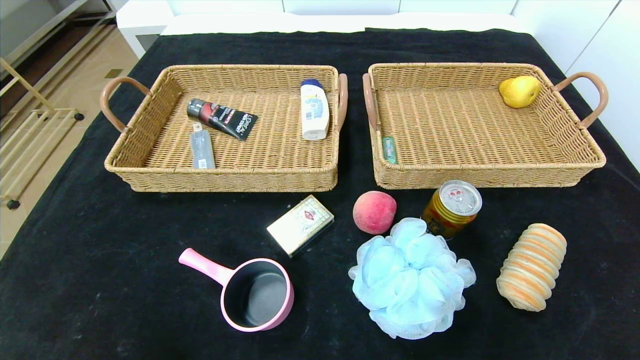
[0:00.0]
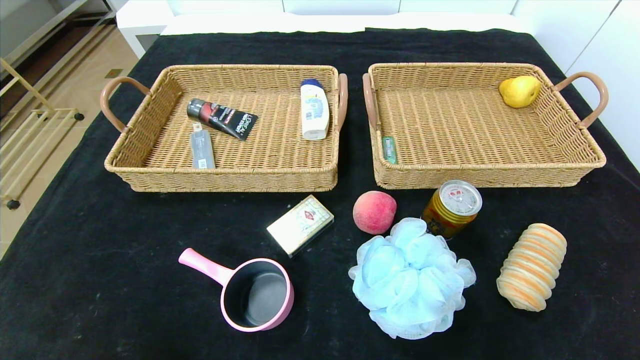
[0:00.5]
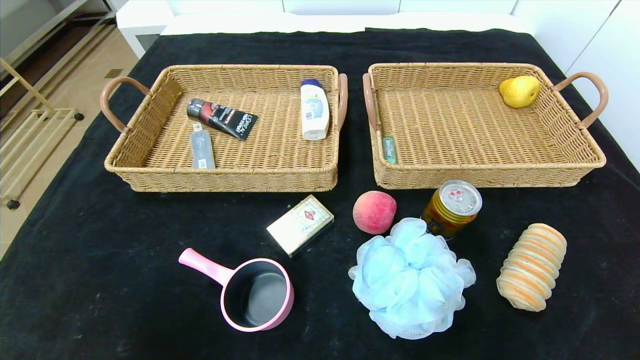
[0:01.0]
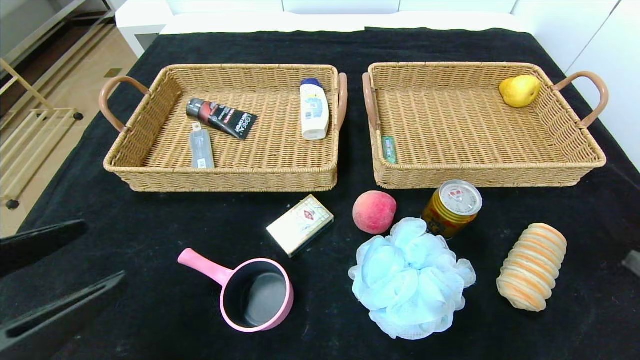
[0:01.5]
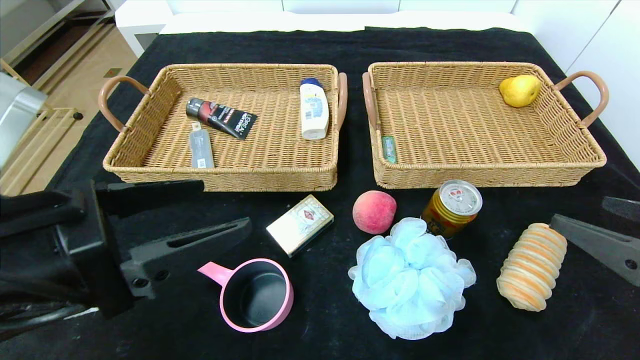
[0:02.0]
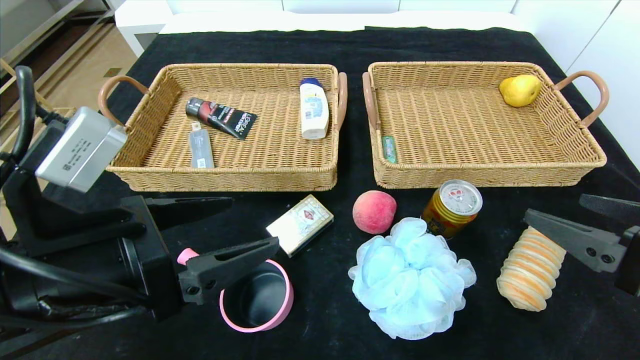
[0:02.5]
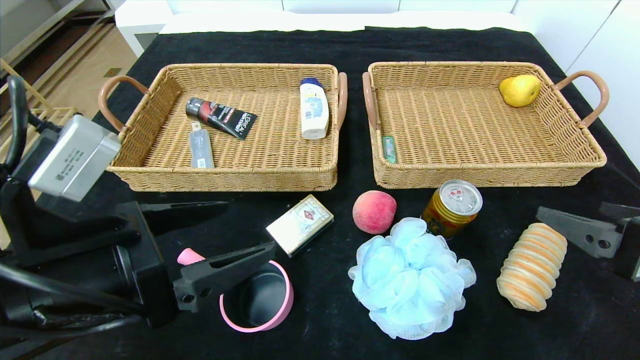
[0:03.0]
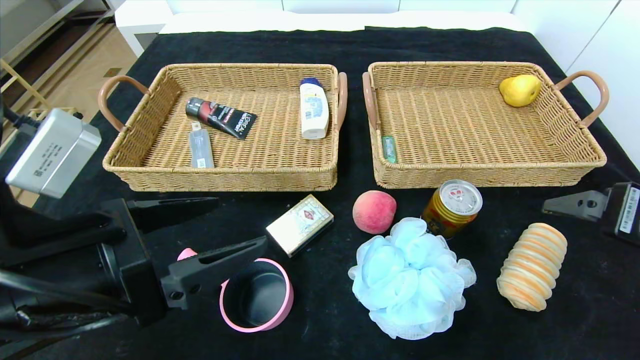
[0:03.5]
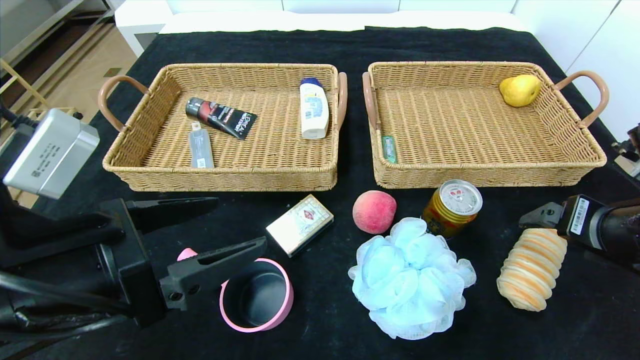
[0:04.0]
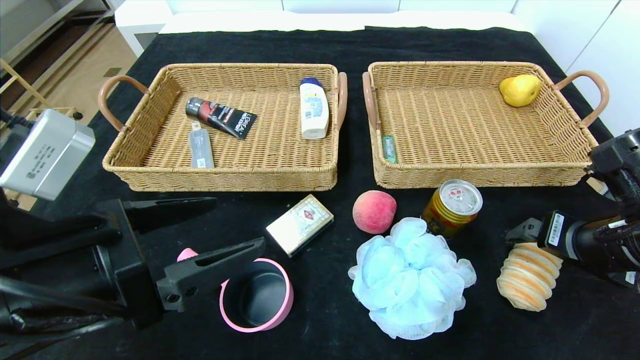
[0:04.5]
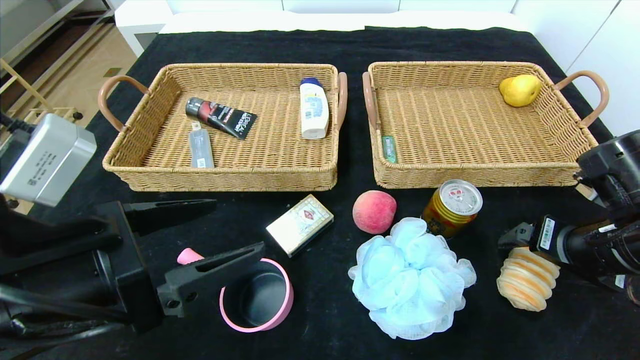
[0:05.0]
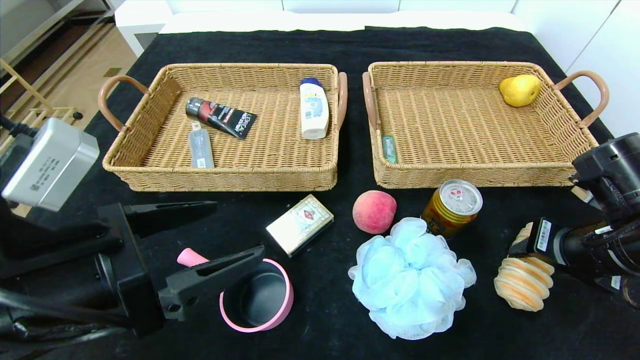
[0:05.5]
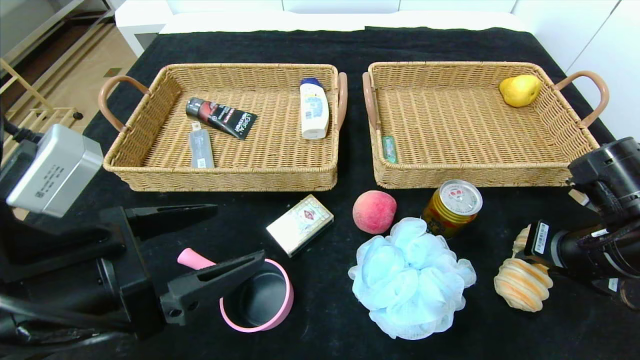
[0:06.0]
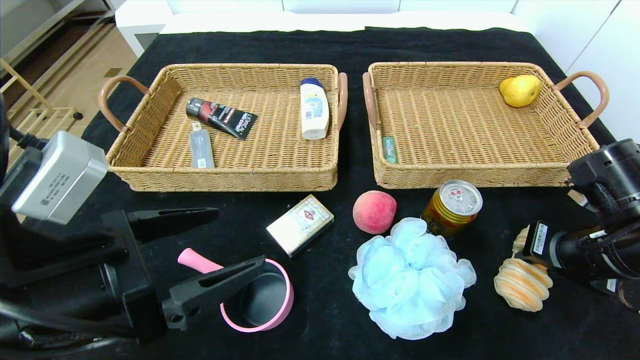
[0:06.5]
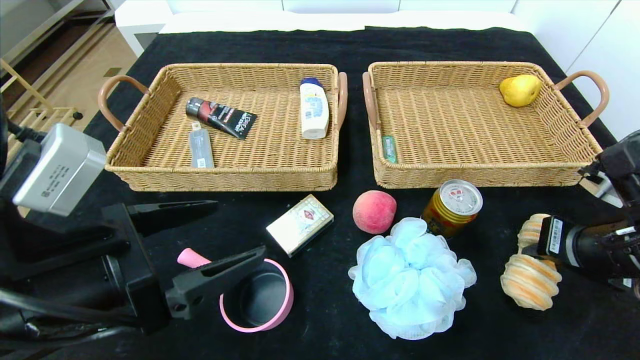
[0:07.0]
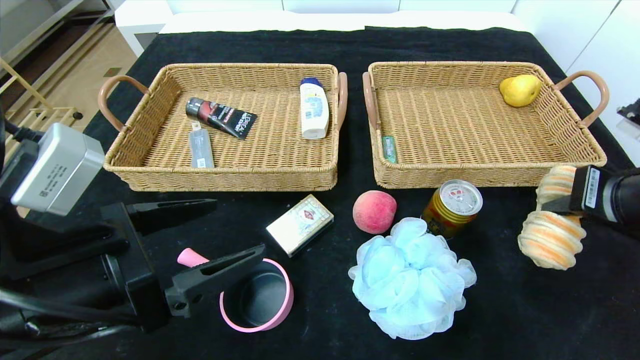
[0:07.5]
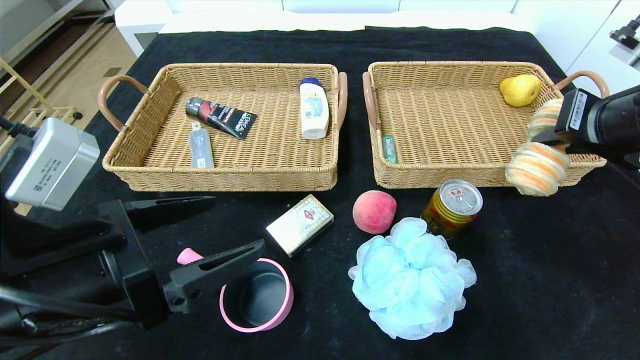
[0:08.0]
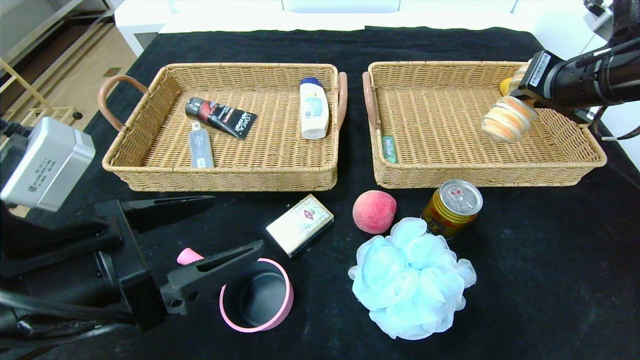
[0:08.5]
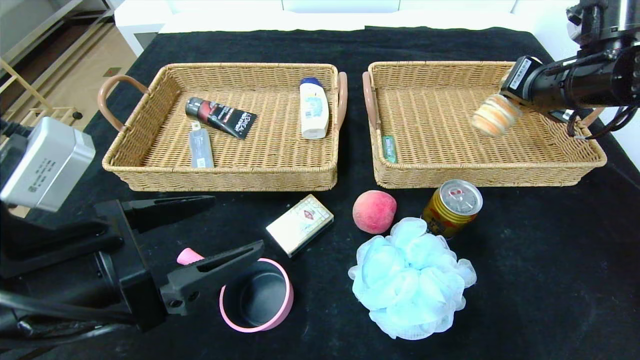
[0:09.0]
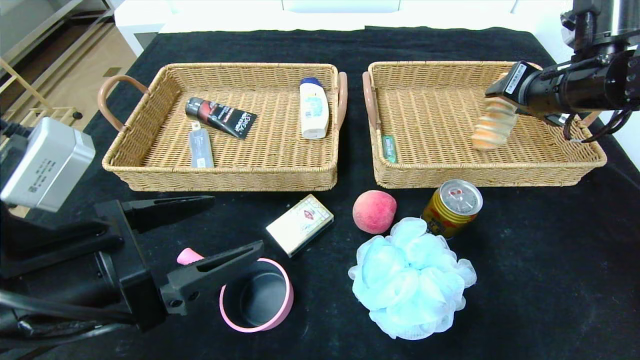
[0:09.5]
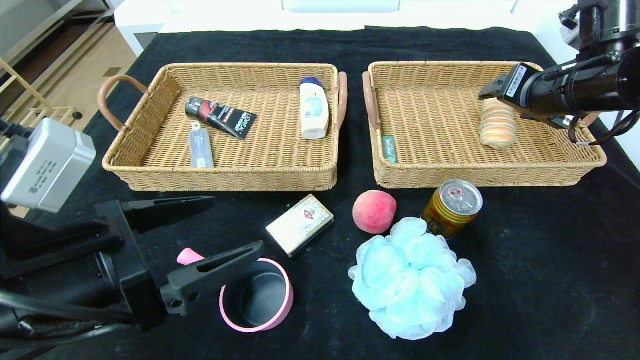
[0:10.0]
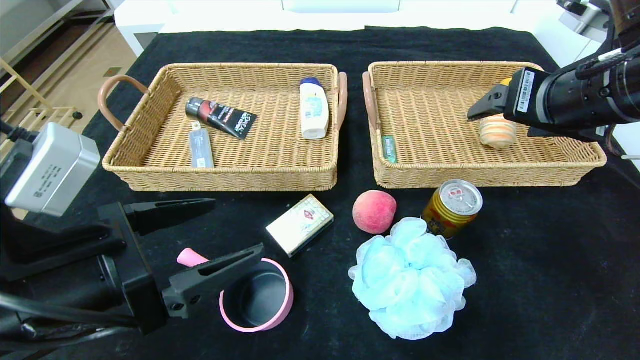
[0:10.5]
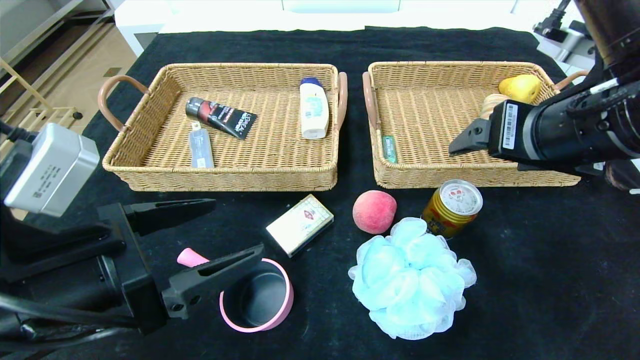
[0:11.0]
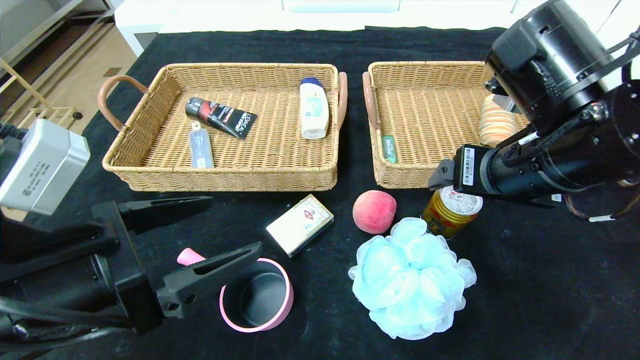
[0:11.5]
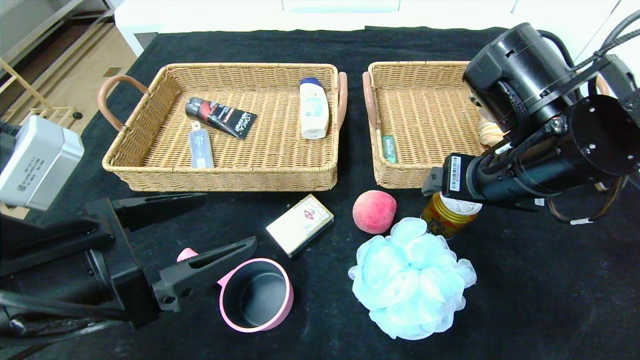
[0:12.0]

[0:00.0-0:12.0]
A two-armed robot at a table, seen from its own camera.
Step, 0:00.0 to 0:11.0: Pick up the long bread and put it in the right basket.
0:00.0 to 0:02.0: The right gripper shifts roughly 20 cm upward and forward, while the left gripper goes some 25 cm upward, forward and to the right.
0:02.0 to 0:04.0: The right gripper shifts some 10 cm forward.
0:04.0 to 0:06.0: The right gripper ends up some 5 cm from where it was, and closes its fingers.
0:06.0 to 0:08.0: The right gripper shifts some 15 cm upward.
0:08.0 to 0:10.0: The right gripper heads forward, covering some 10 cm, and opens.
0:10.0 to 0:12.0: The right gripper heads to the left and backward, covering approximately 15 cm.

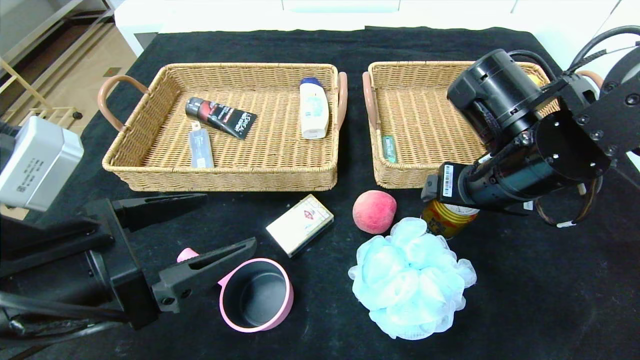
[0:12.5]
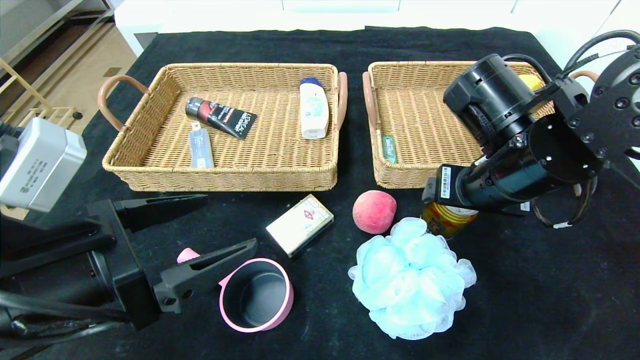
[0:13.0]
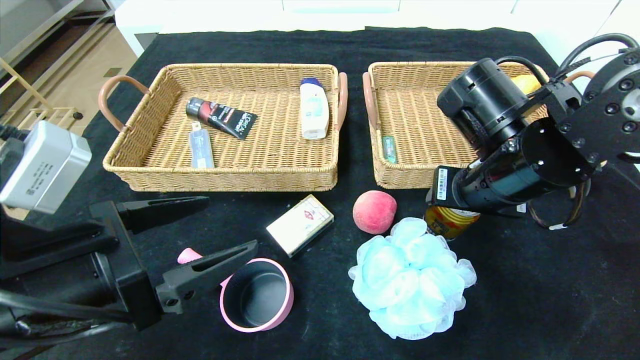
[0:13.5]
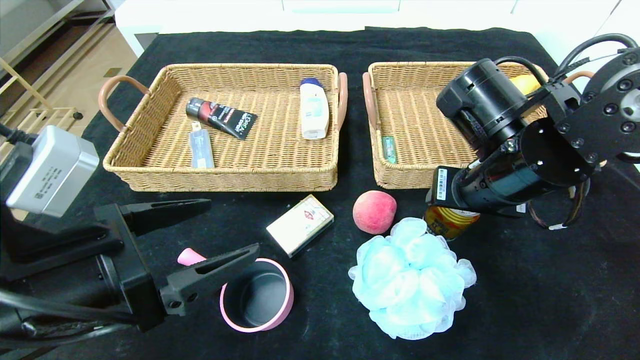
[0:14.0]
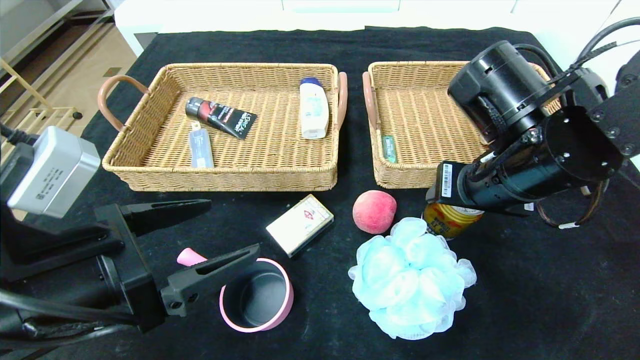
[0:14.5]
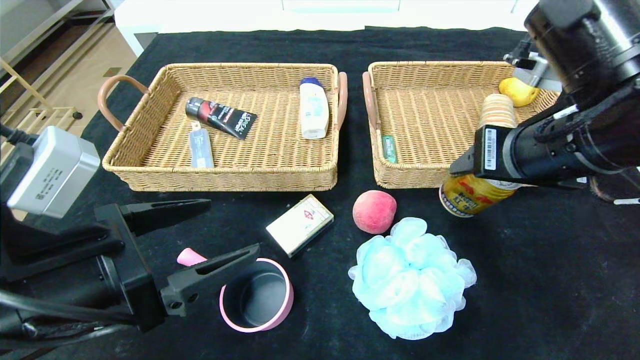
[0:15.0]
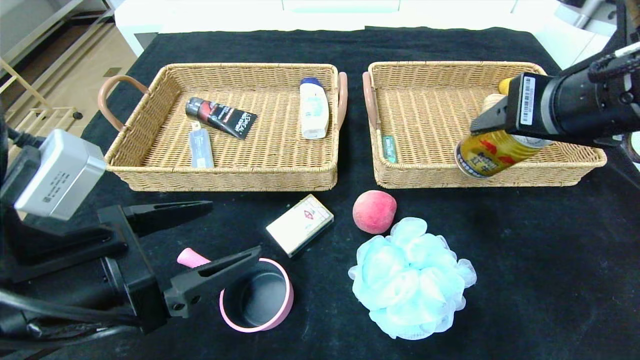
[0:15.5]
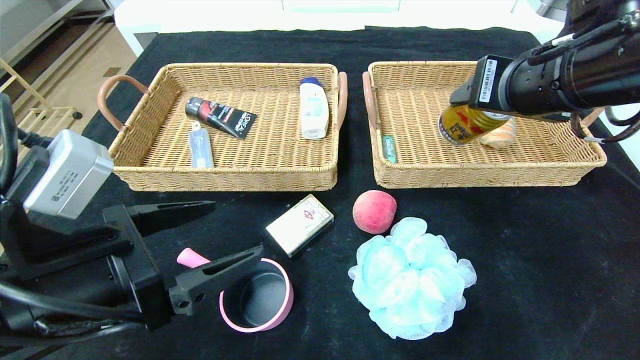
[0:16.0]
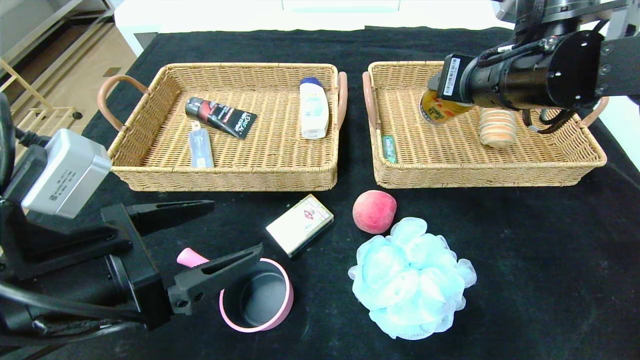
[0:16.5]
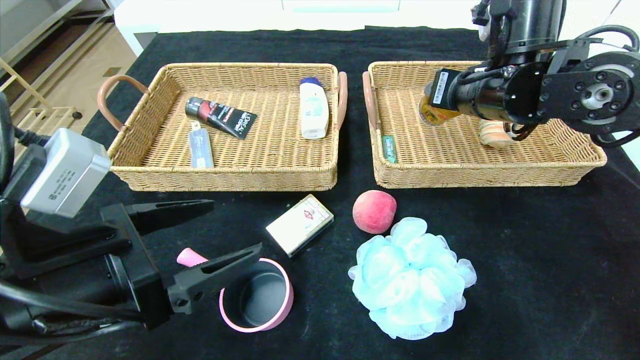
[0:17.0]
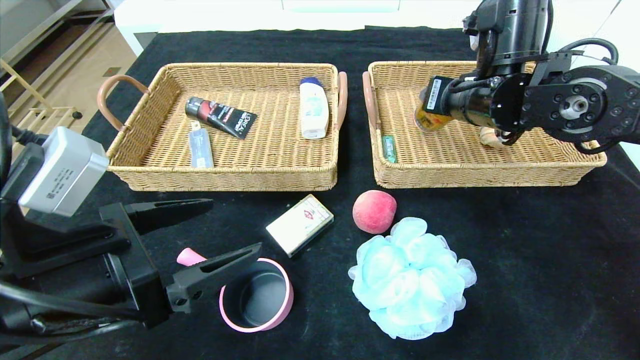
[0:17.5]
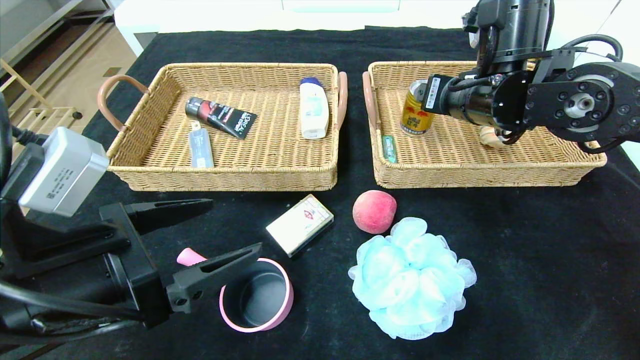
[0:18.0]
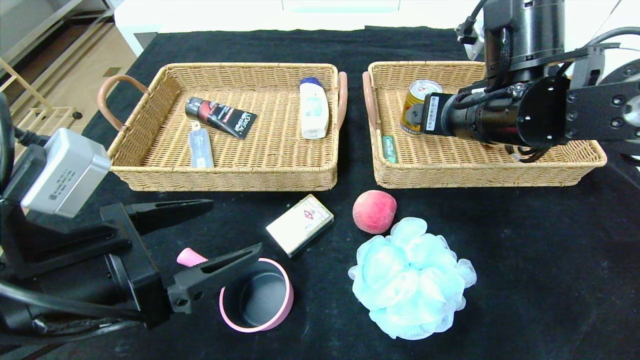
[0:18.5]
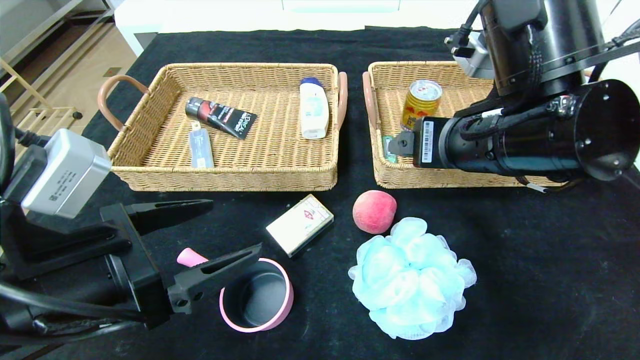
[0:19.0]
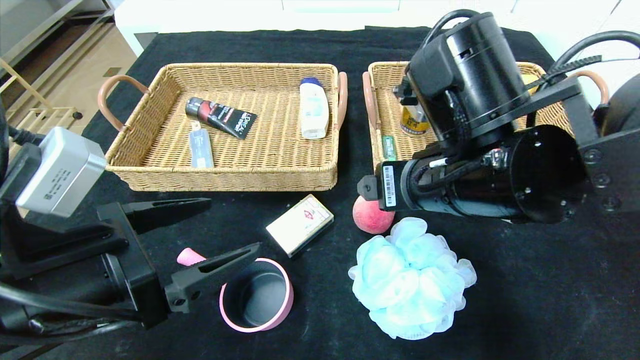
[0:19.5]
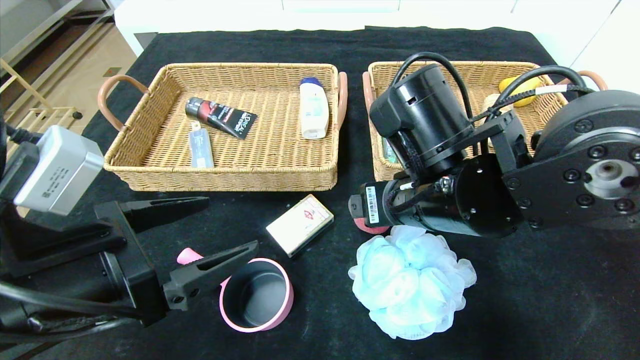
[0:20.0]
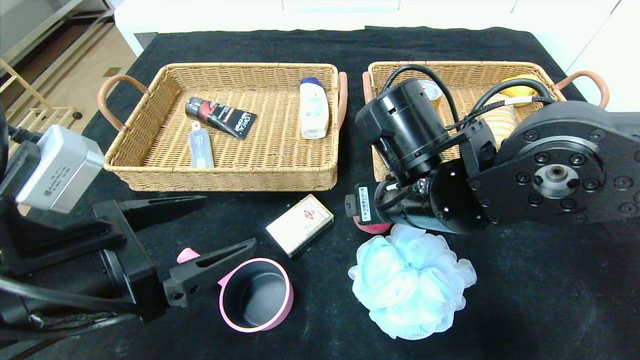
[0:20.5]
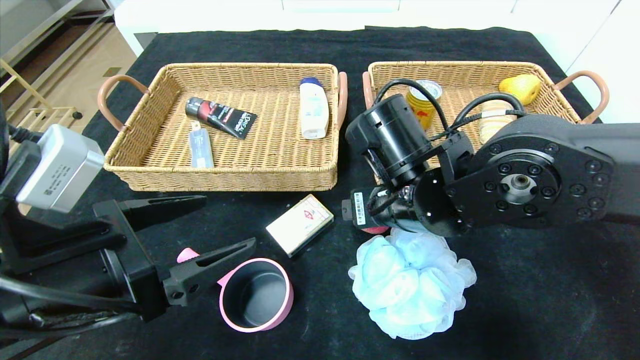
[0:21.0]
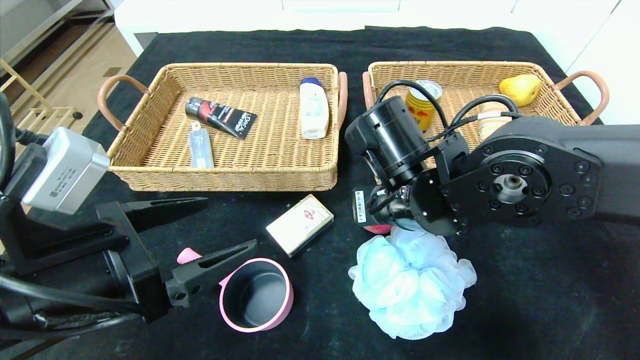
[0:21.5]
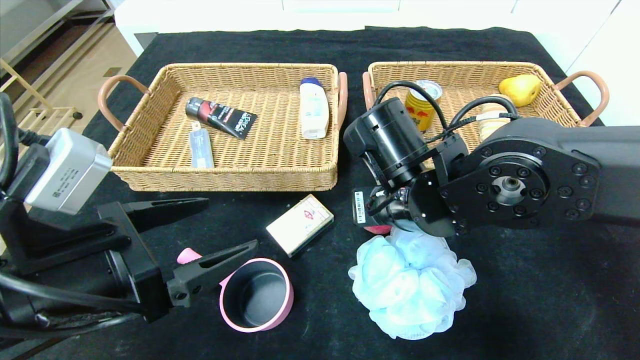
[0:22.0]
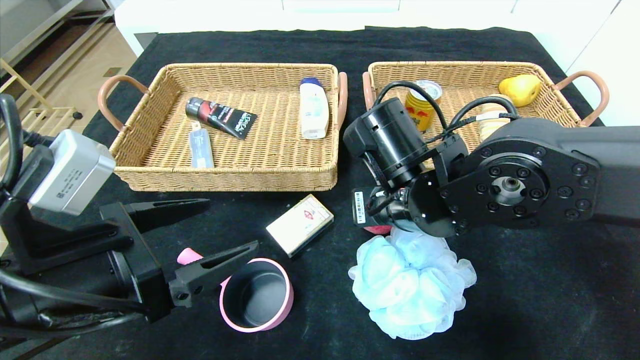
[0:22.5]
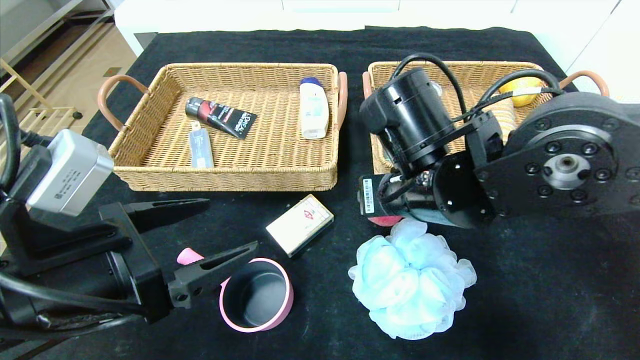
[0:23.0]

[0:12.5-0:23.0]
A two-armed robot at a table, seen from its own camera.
Step, 0:12.5 to 0:19.0: Pick up the red bull and put it in the right basket.
0:12.5 to 0:14.5: The right gripper closes.
0:14.5 to 0:16.5: The right gripper goes approximately 10 cm upward and forward.
0:16.5 to 0:19.0: The right gripper is displaced backward by roughly 10 cm, and opens.
0:19.0 to 0:21.0: The right gripper moves downward and to the left, roughly 10 cm.
0:21.0 to 0:23.0: The right gripper closes.
